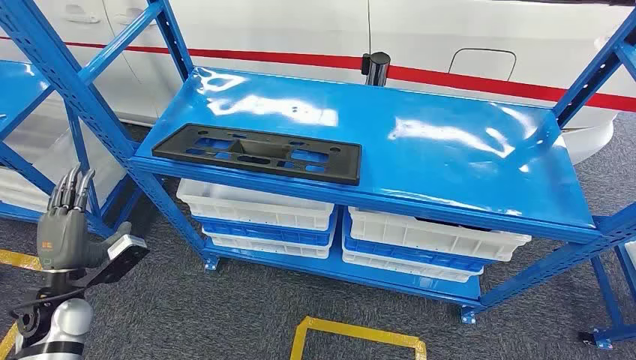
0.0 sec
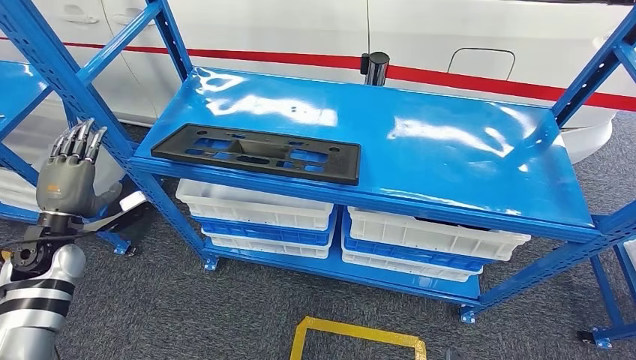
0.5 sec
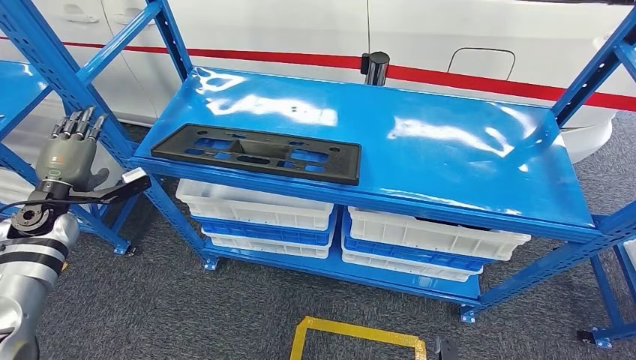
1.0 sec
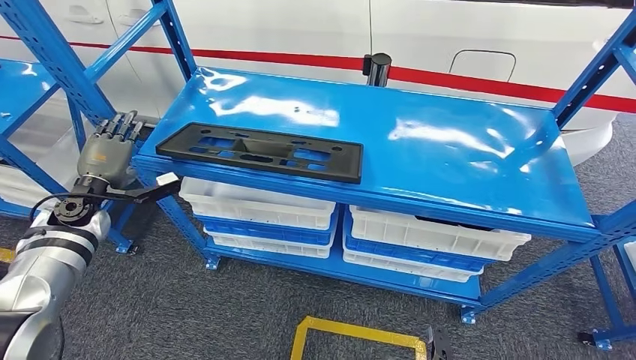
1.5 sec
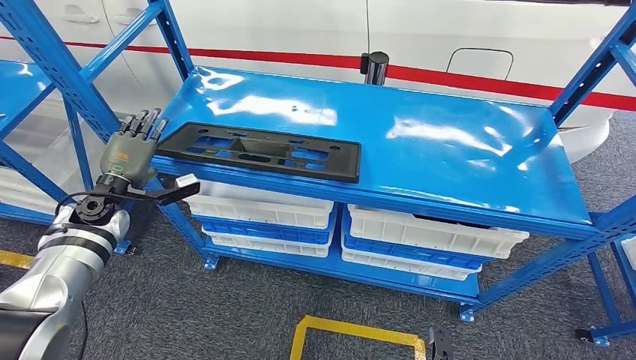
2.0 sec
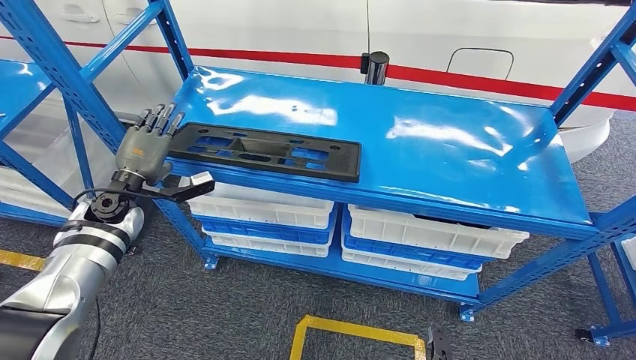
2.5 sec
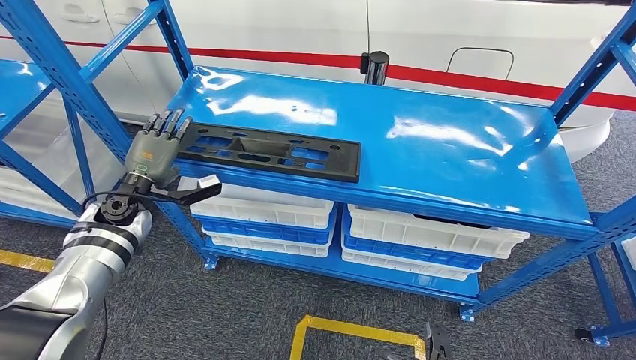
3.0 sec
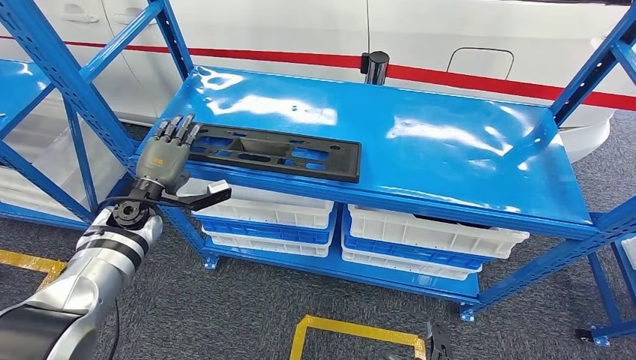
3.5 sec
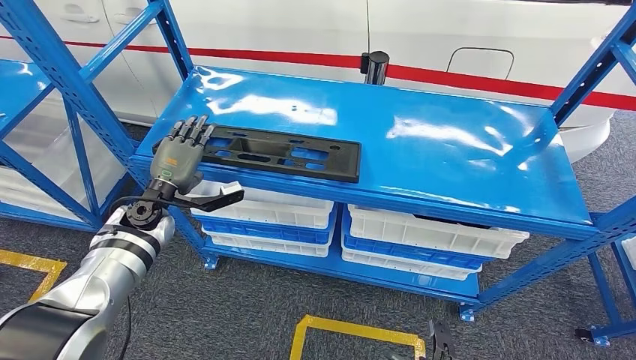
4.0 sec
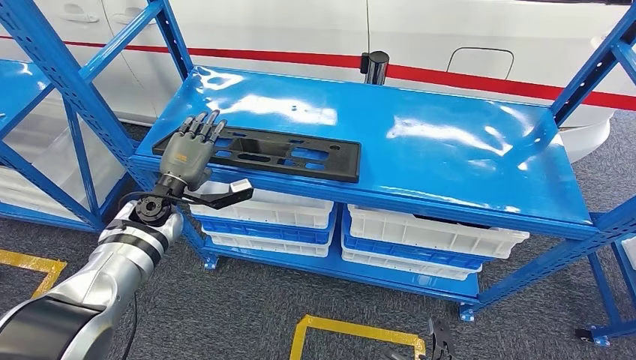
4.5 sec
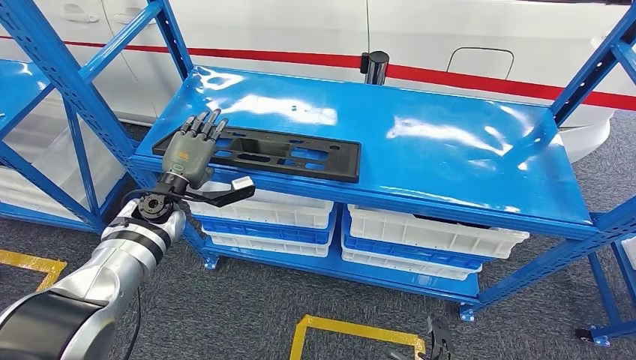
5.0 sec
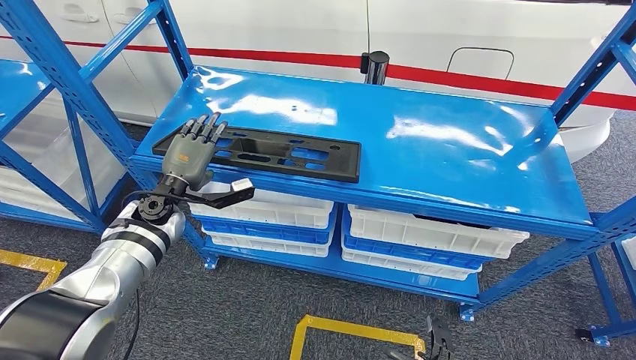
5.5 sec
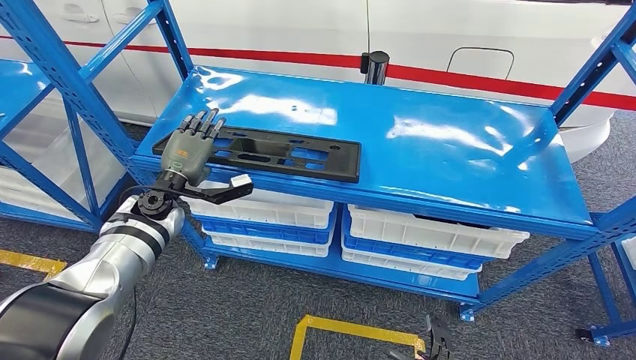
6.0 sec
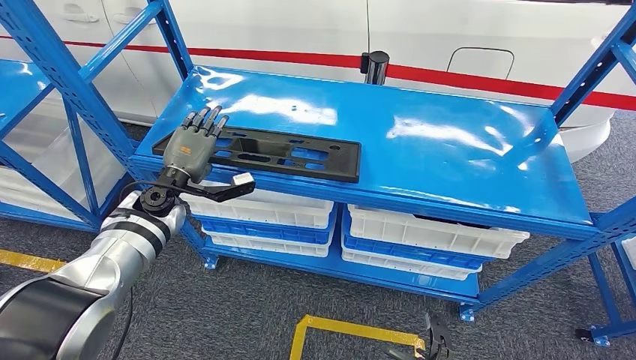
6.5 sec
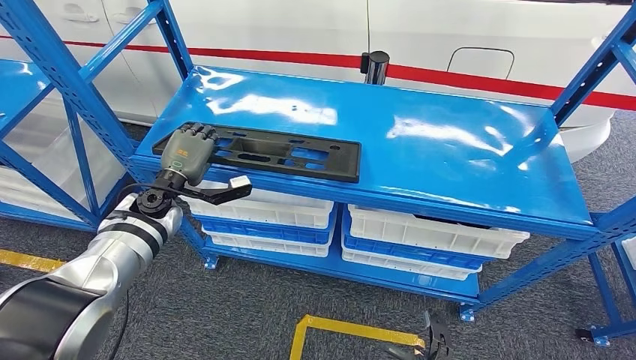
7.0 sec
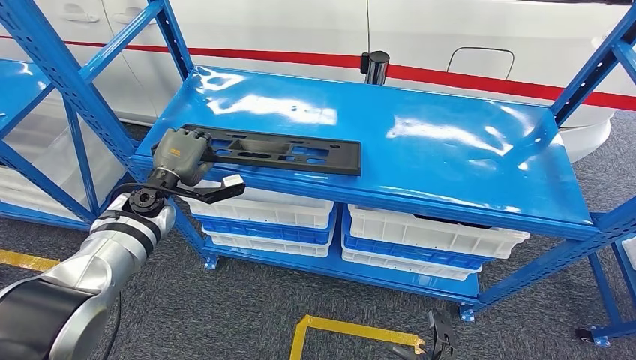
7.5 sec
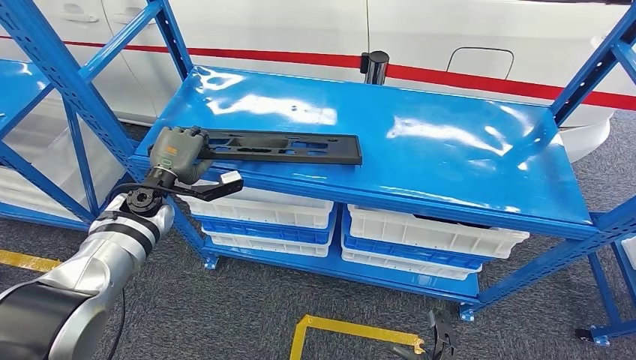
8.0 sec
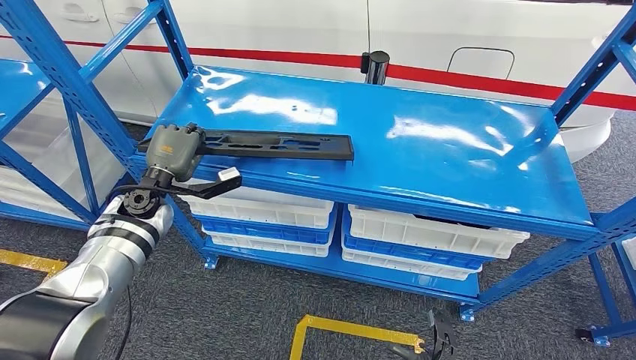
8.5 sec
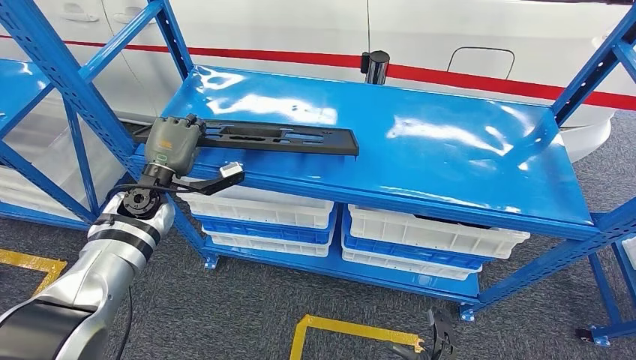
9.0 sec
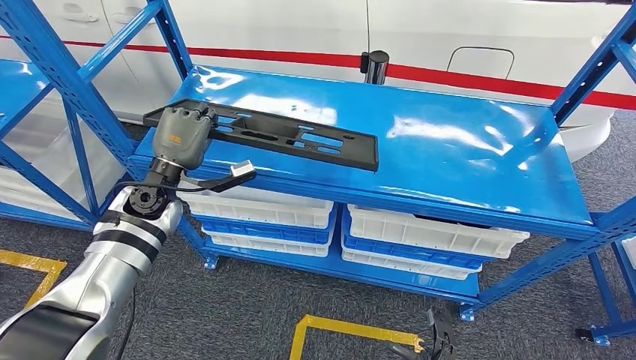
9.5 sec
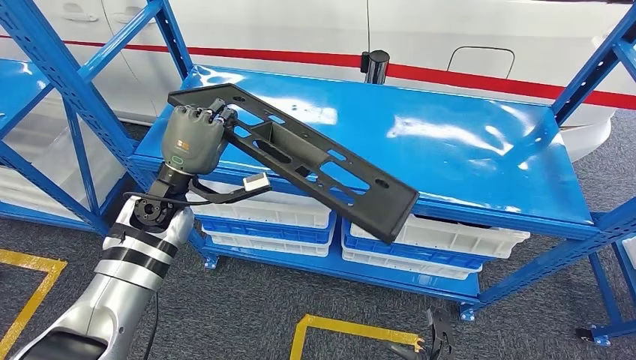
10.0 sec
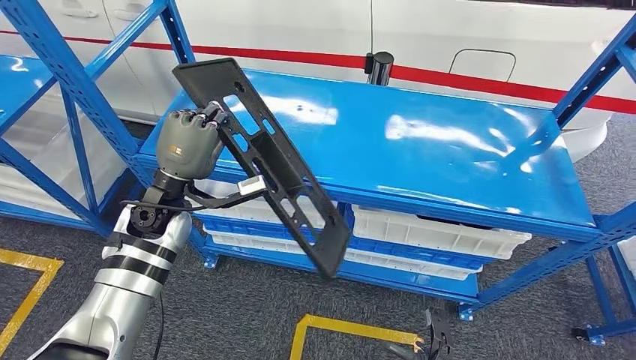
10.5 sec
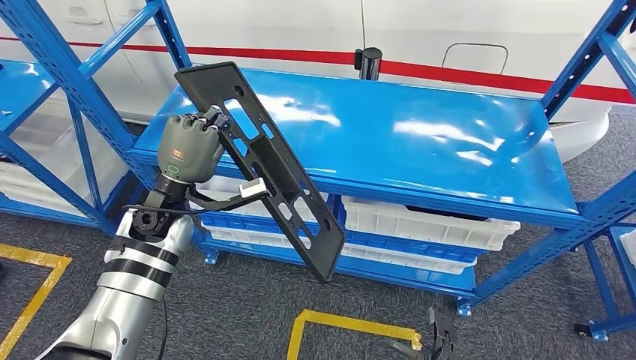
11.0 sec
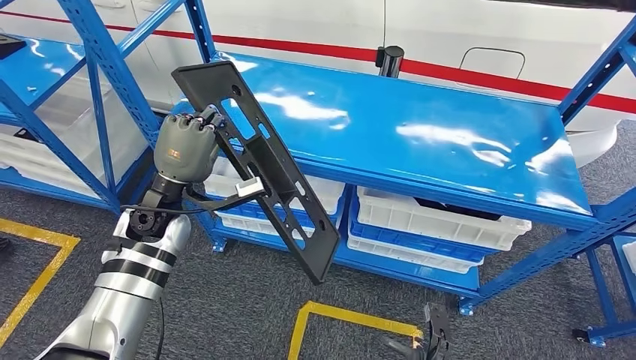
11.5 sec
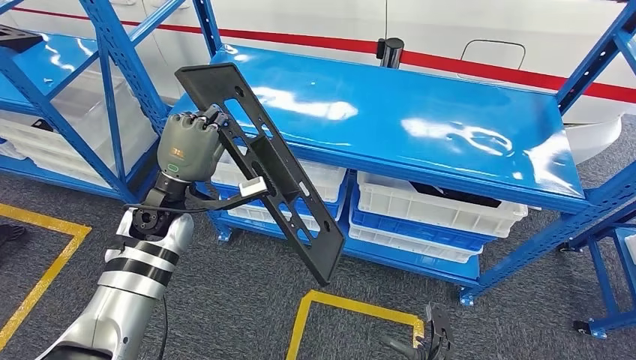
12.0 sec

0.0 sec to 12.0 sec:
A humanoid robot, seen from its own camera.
Step, 0.0 sec to 9.0 sec: Pick up the large material from the shelf.
2.0 sec to 4.0 sec: The left hand is displaced to the right by roughly 10 cm.
4.0 sec to 8.0 sec: There are only small adjustments of the hands.
8.0 sec to 10.0 sec: The left hand goes roughly 10 cm to the right and upward.

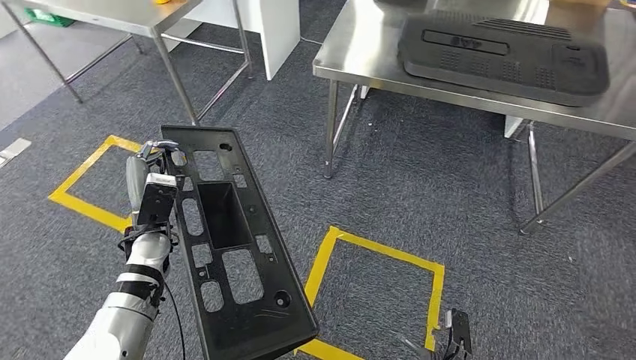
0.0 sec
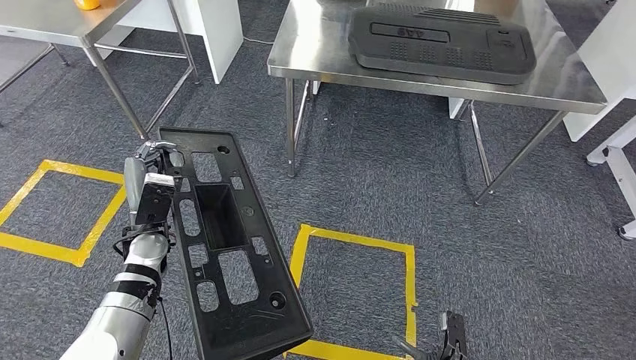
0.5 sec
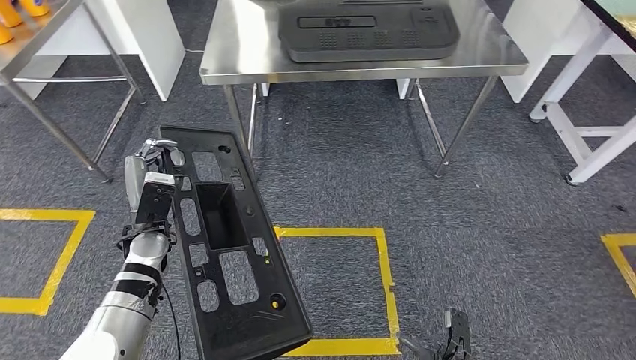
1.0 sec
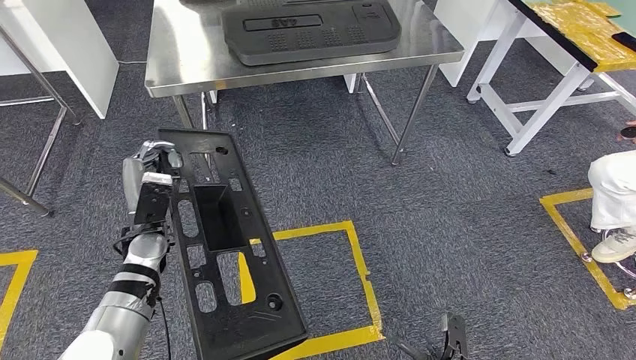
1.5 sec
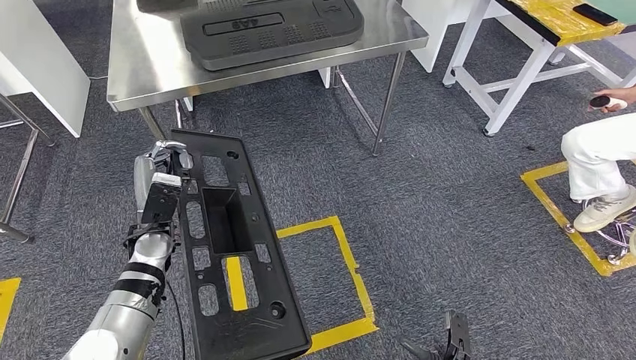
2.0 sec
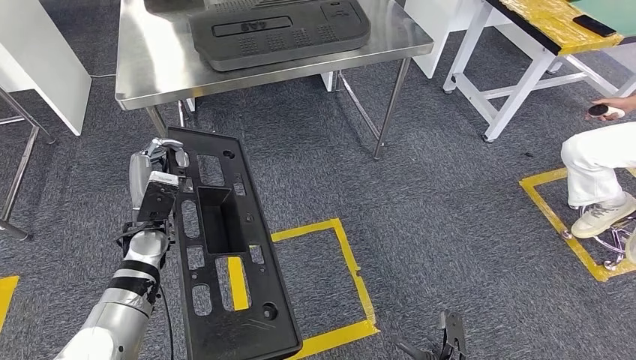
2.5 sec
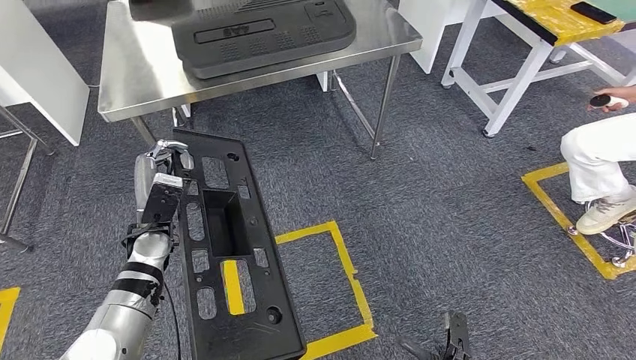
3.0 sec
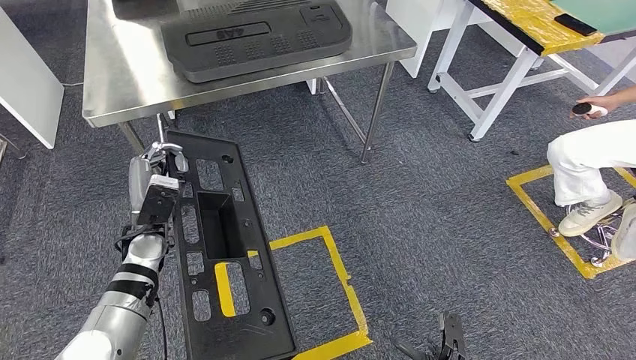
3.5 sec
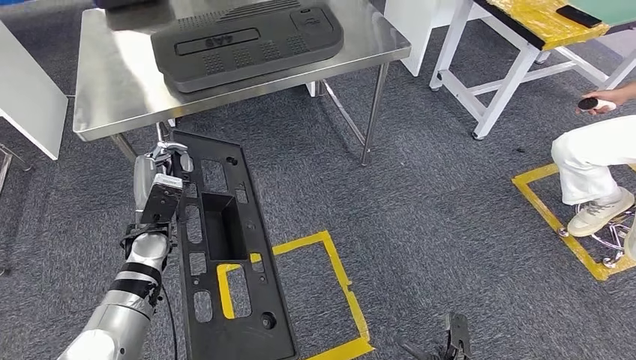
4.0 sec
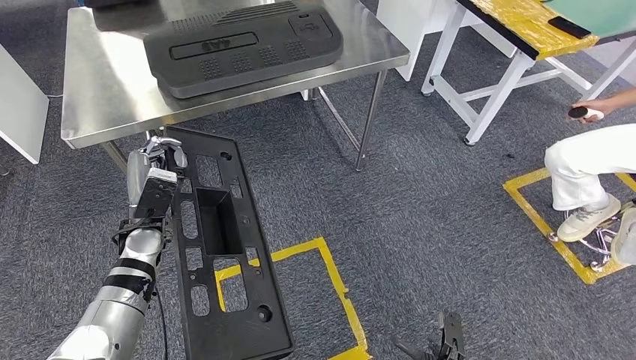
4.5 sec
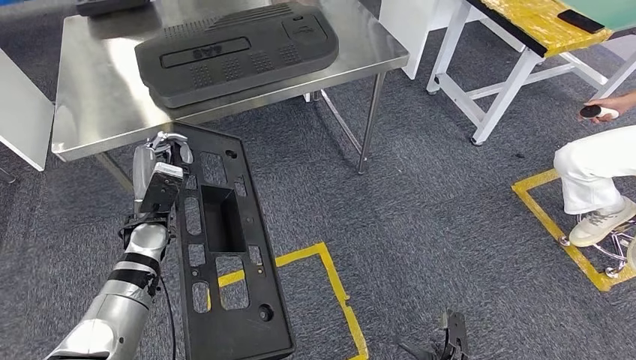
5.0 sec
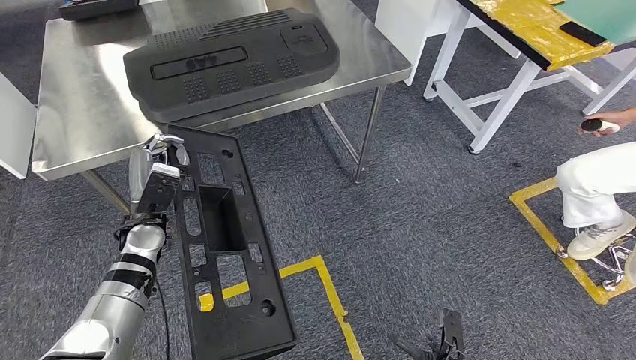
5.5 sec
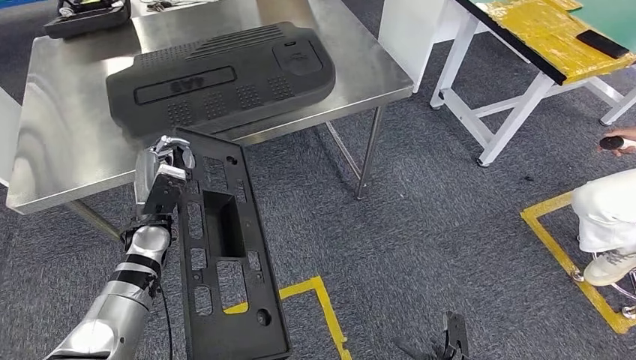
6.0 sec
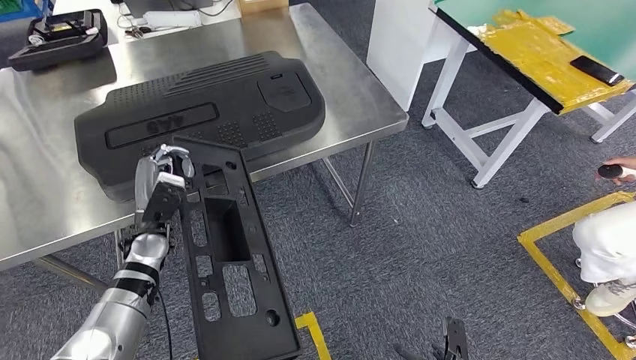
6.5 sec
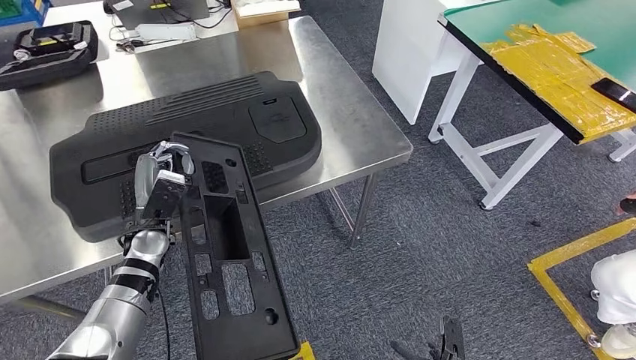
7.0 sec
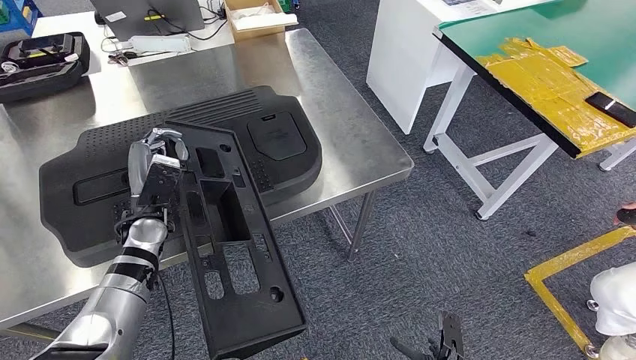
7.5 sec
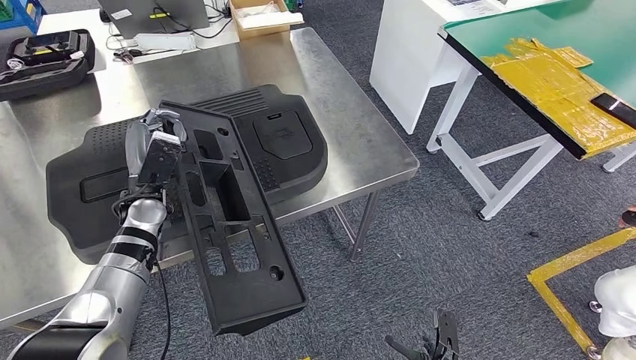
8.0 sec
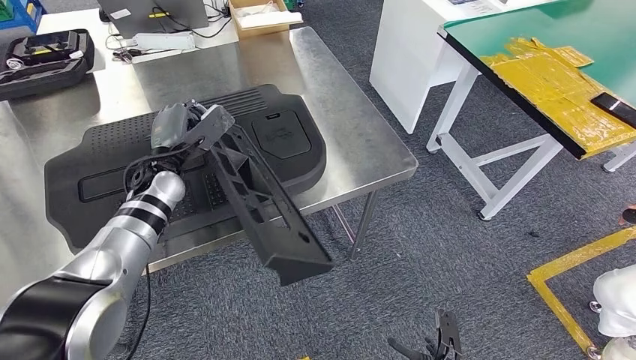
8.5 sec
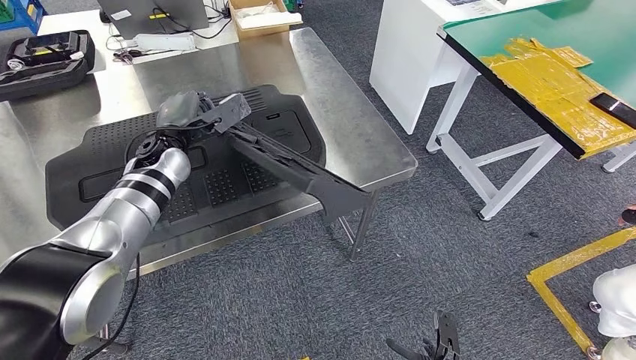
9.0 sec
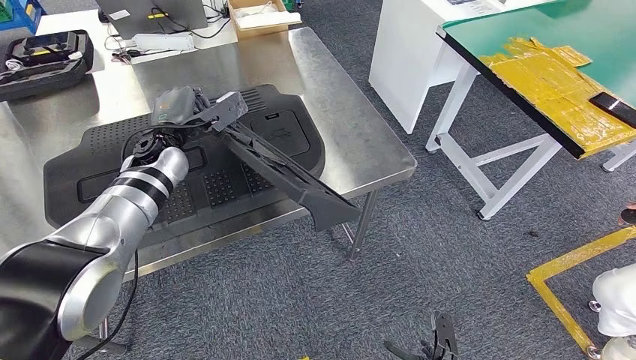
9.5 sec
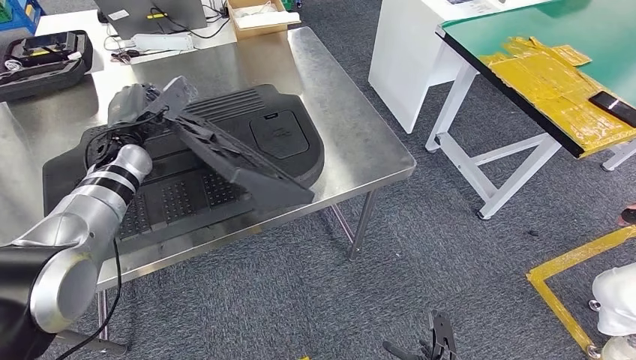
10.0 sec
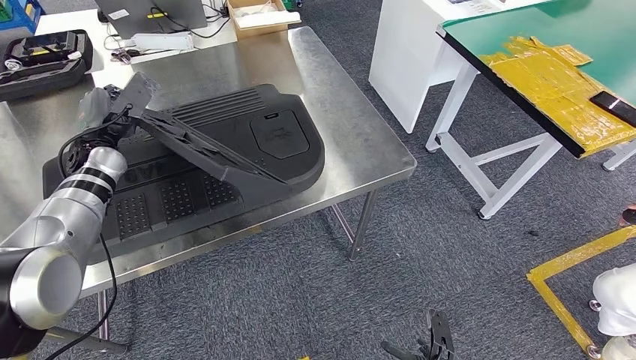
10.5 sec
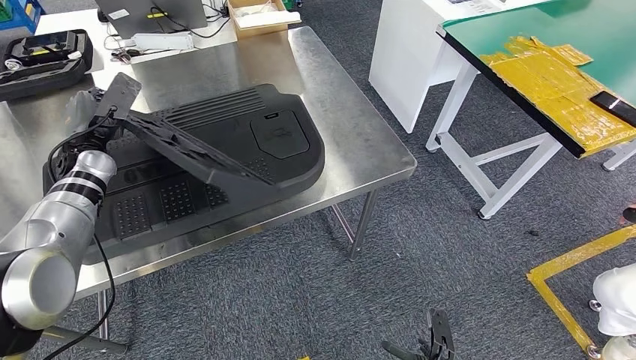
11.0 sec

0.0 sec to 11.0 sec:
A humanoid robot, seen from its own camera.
Step, 0.0 sec to 3.5 sec: Move the large material to the workbench.
